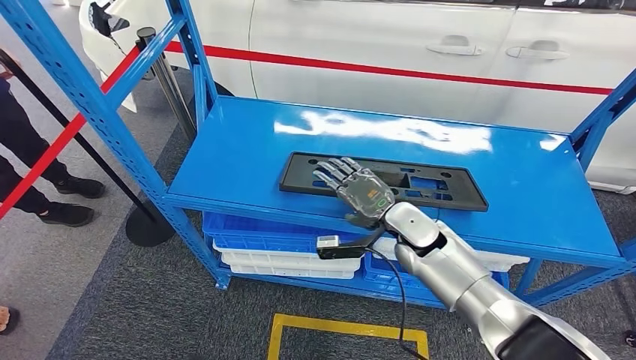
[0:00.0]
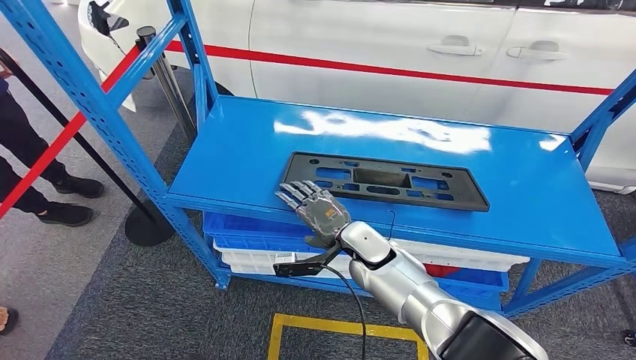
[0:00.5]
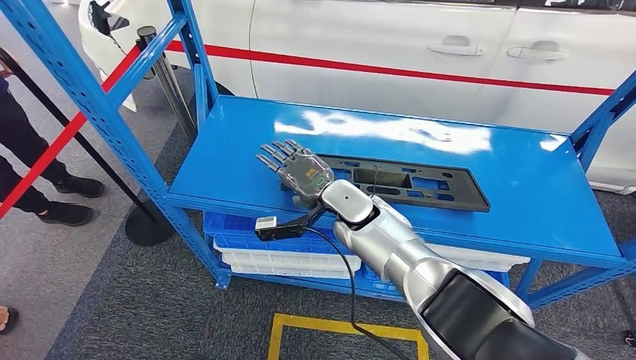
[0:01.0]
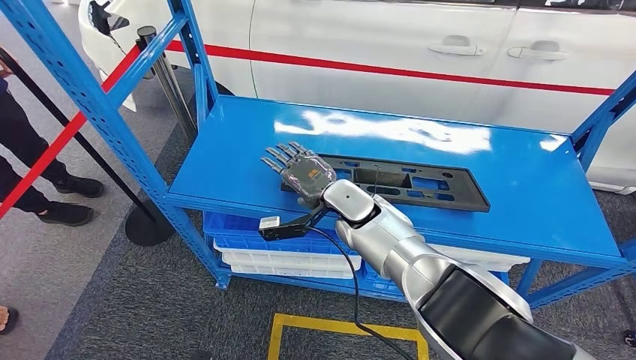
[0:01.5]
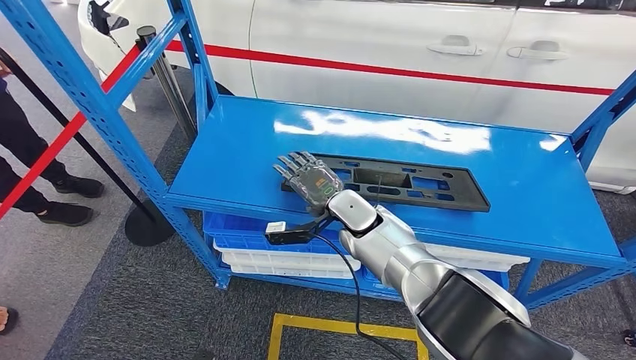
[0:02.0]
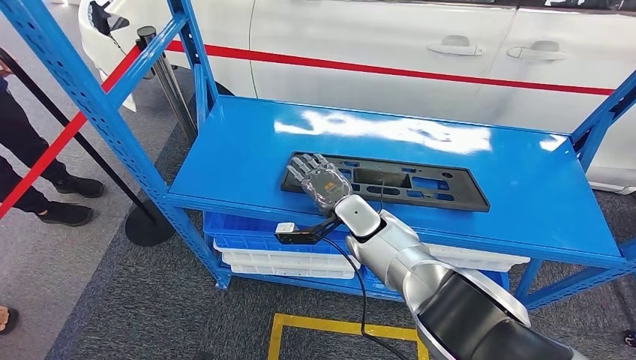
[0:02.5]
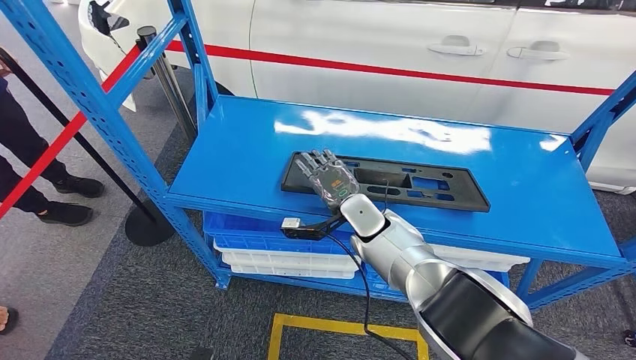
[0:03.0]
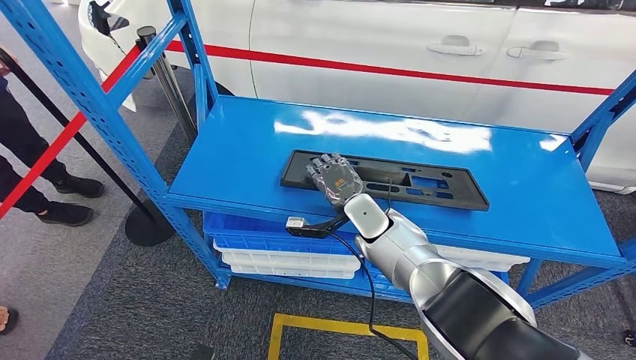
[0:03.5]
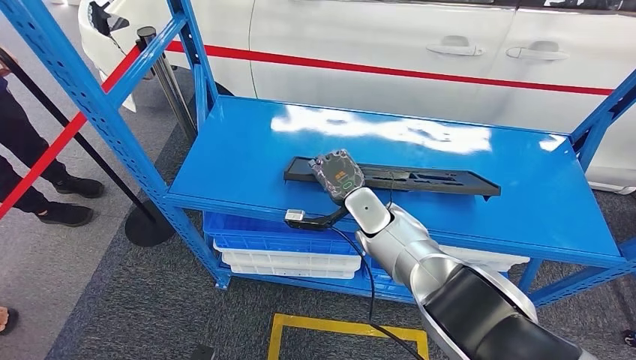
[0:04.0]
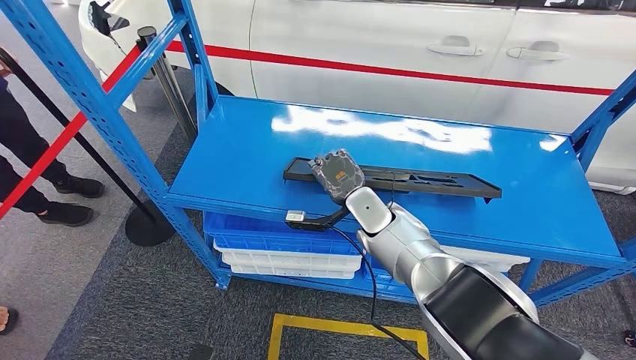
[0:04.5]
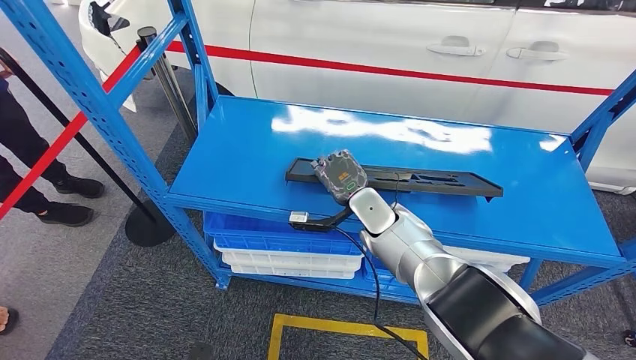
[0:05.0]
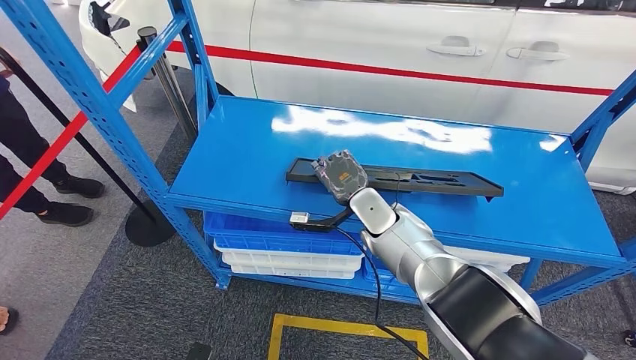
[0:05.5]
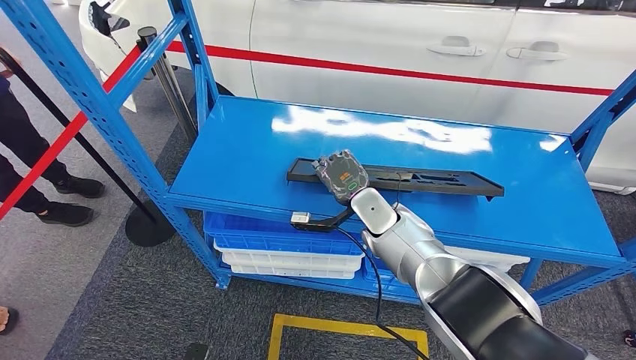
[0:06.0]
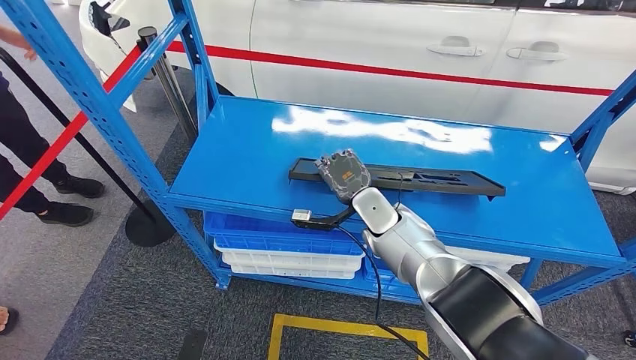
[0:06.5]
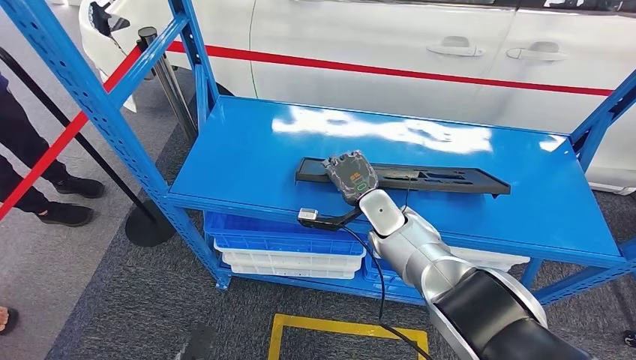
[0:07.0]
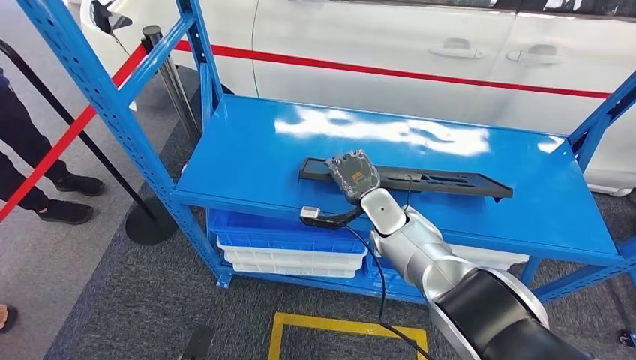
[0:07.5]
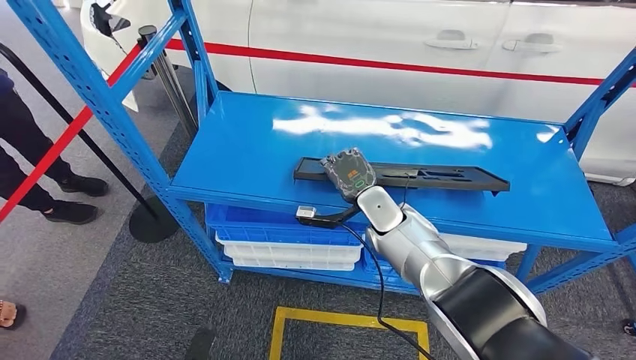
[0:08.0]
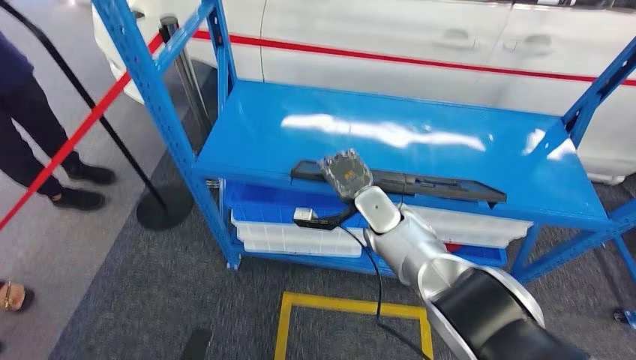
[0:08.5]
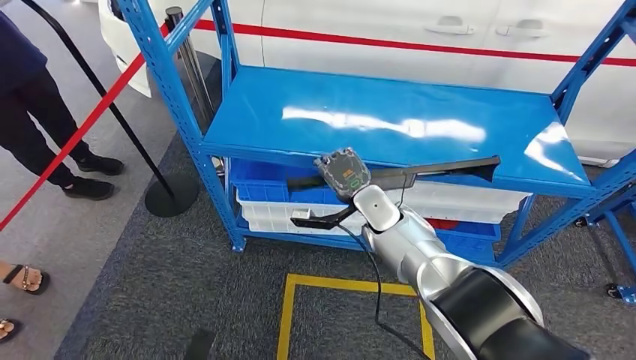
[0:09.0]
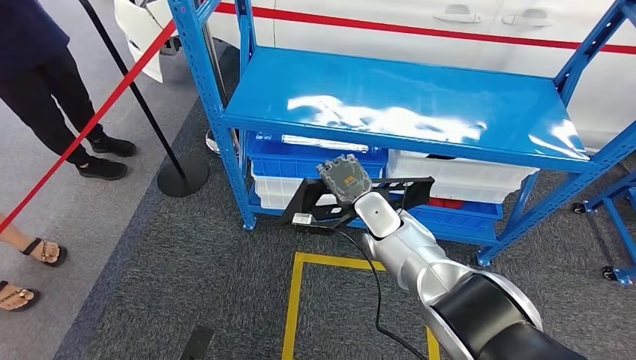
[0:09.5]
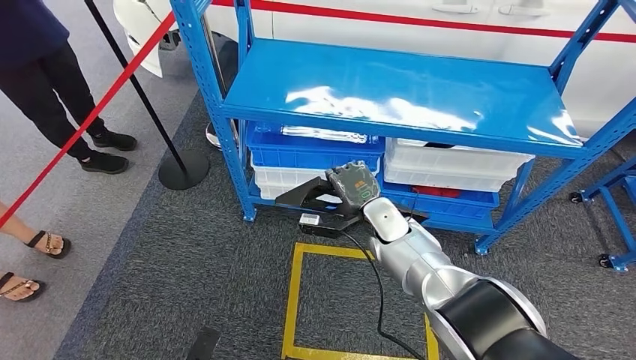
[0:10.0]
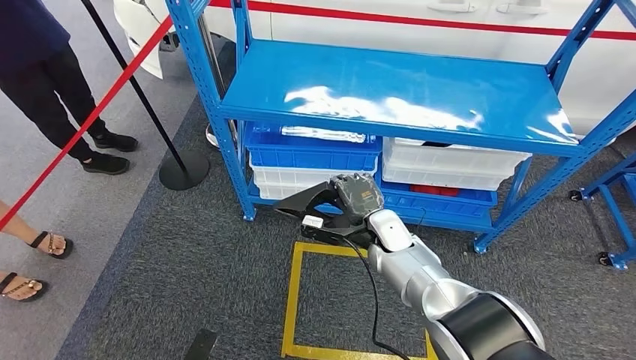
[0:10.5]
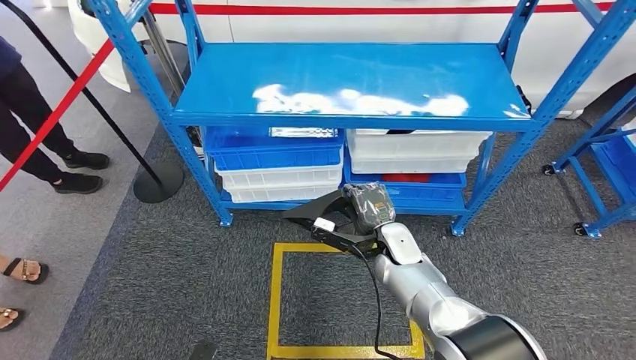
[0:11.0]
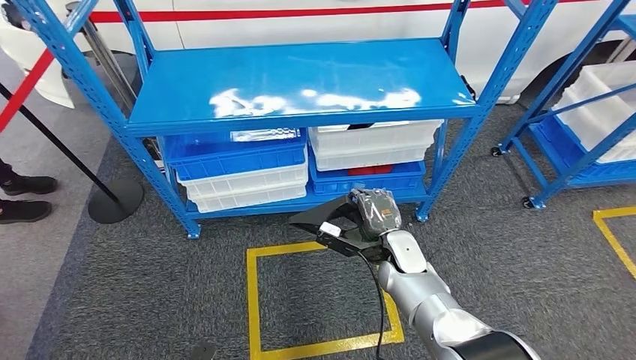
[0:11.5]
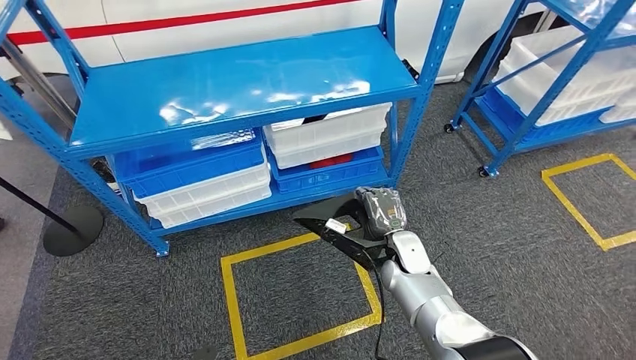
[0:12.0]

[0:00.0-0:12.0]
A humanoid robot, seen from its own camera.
Step, 0:00.0 to 0:04.5: Pick up the large material from the shelf.
0:00.0 to 0:02.0: The right hand shifts about 10 cm to the left.
0:02.0 to 0:04.0: The hands stay close to where they were, moving slightly.

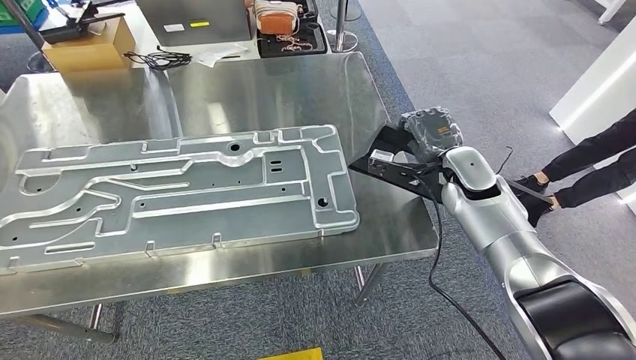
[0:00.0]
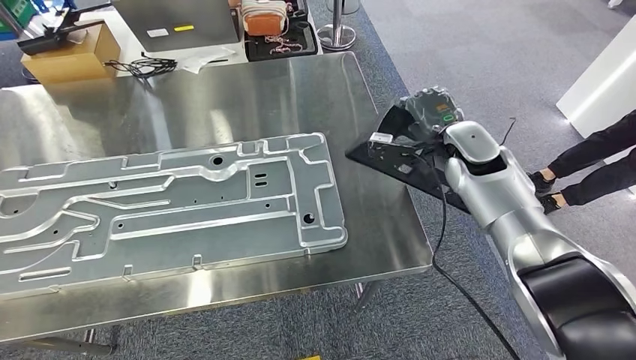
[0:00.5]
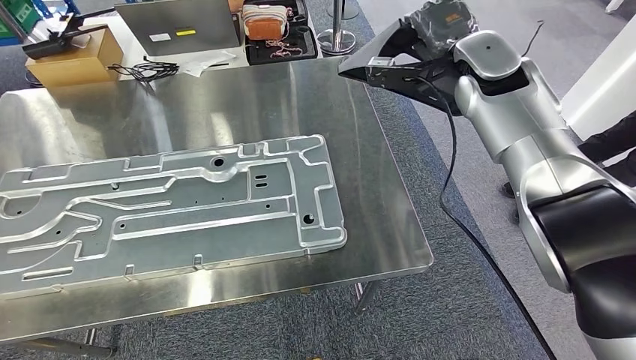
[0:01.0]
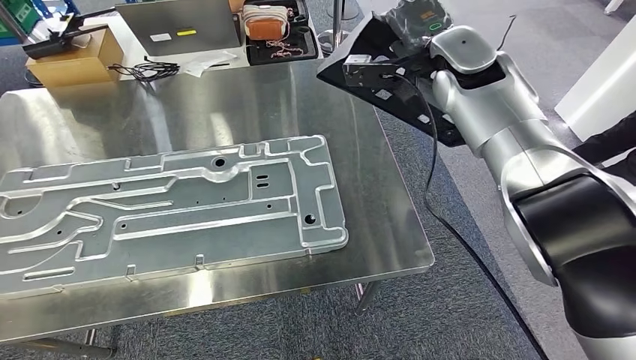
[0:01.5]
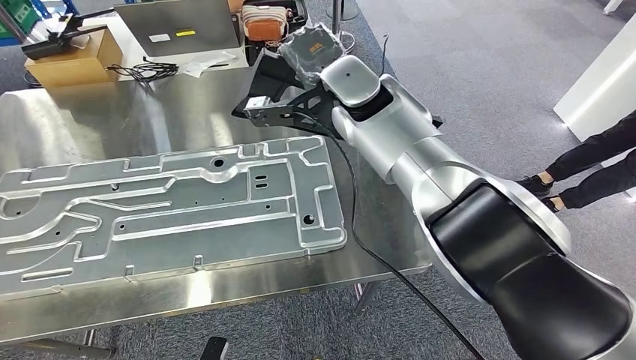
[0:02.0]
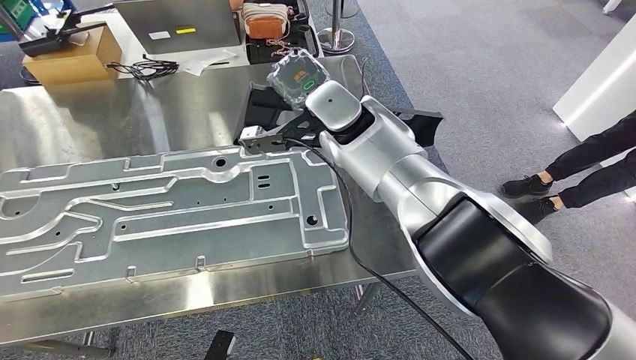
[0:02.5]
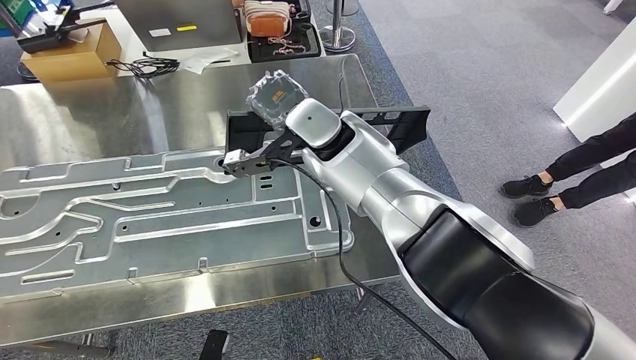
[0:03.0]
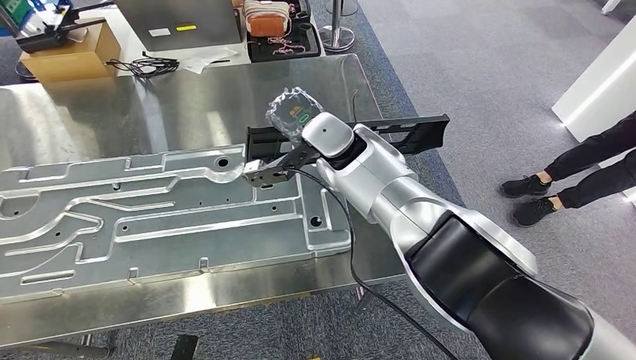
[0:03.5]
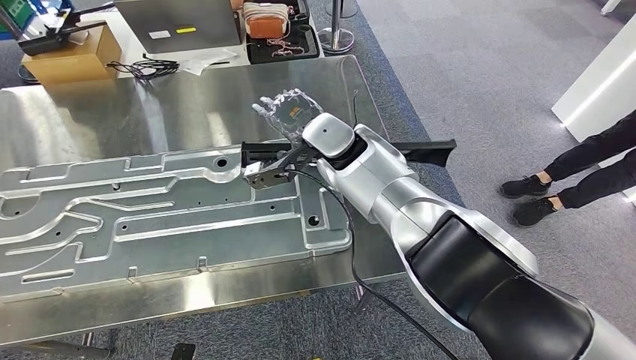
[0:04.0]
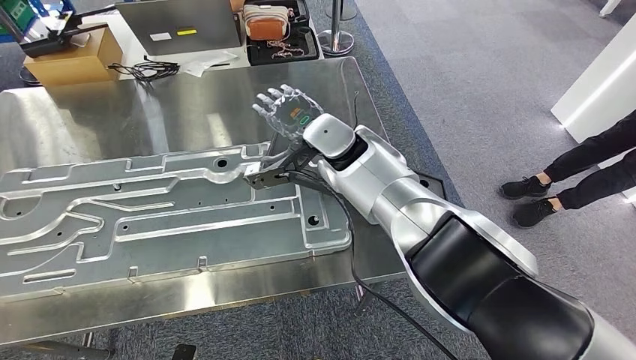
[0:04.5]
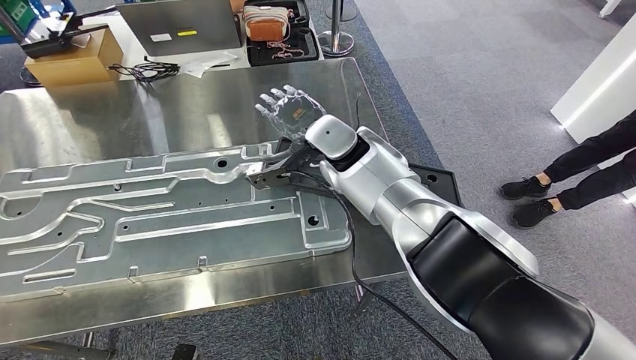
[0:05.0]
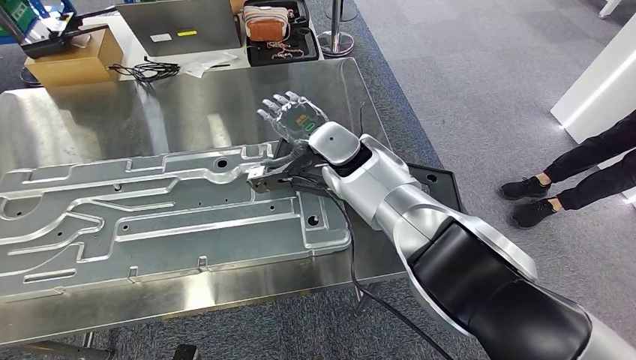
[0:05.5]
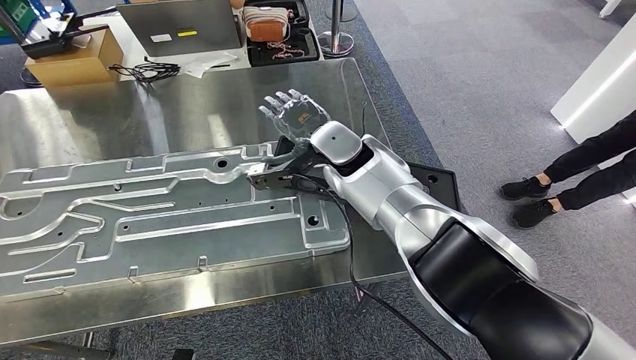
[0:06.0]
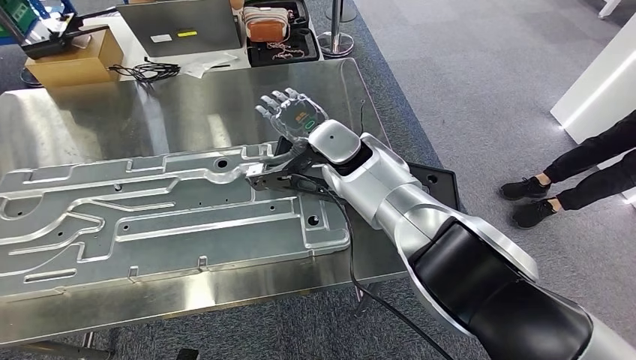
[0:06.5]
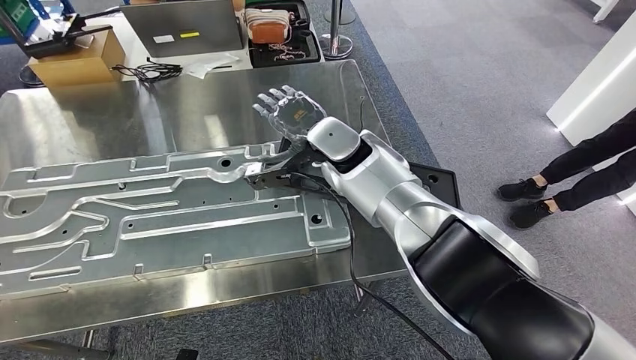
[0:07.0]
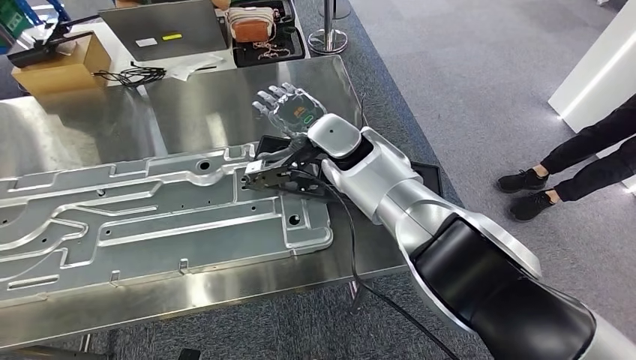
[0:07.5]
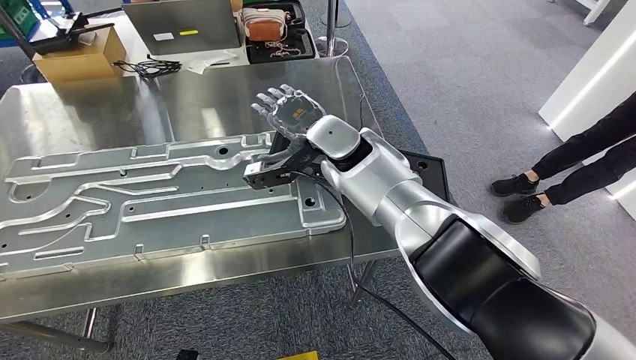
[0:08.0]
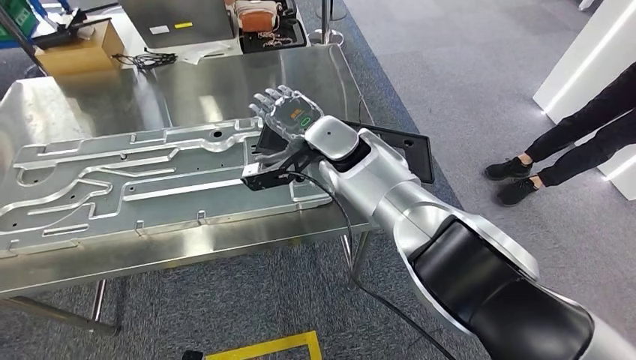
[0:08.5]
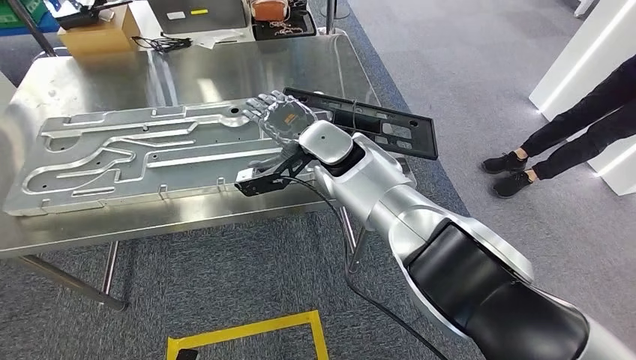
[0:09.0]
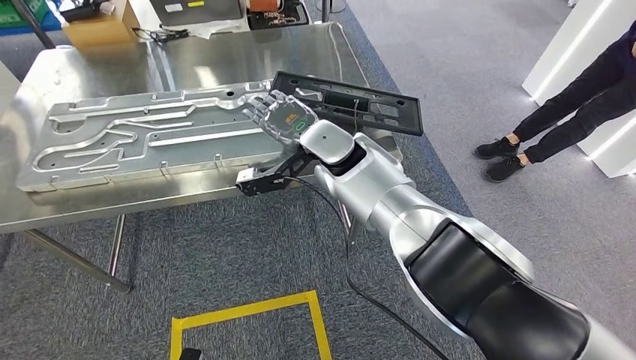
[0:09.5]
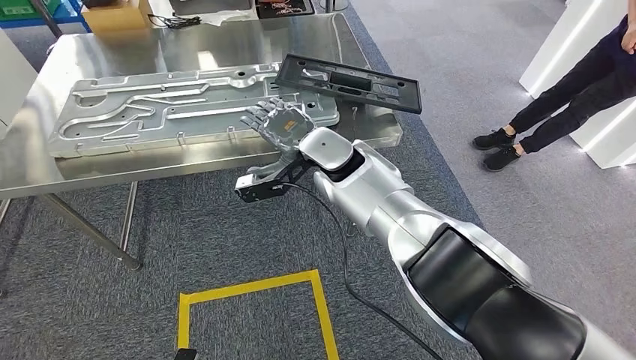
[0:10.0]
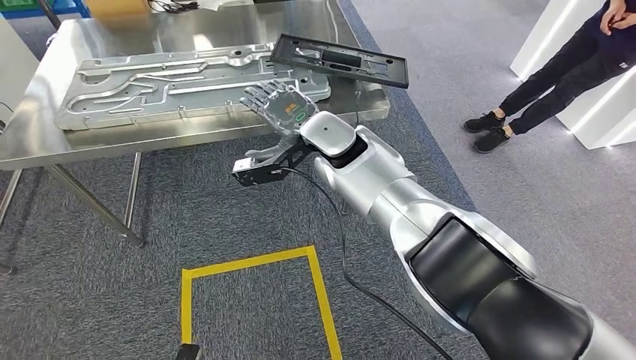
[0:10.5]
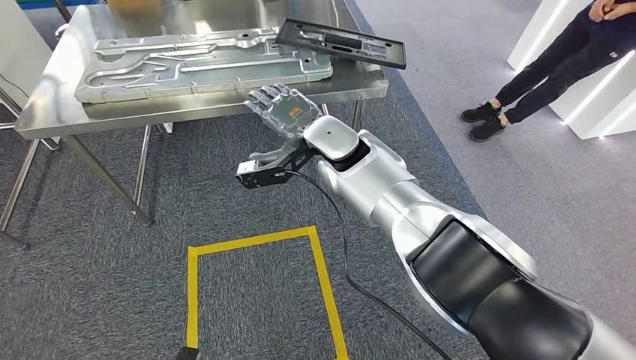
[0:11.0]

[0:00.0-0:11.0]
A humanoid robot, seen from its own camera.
Step, 0:01.5 to 0:06.5: Insert the large material into the corresponding slot on the workbench.
0:03.5 to 0:05.5: The hands make only small movements.
